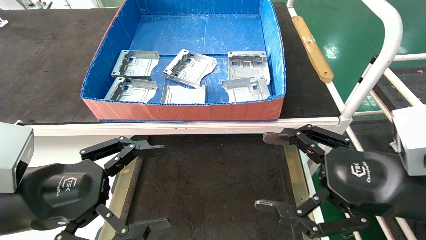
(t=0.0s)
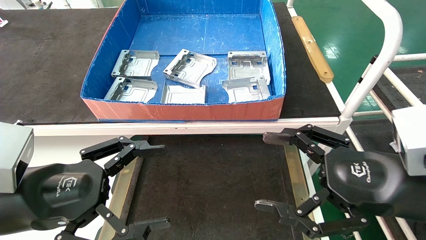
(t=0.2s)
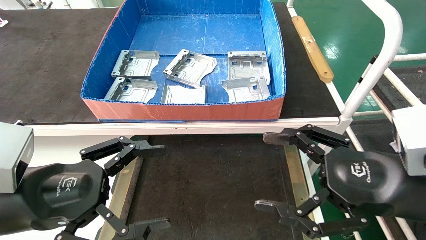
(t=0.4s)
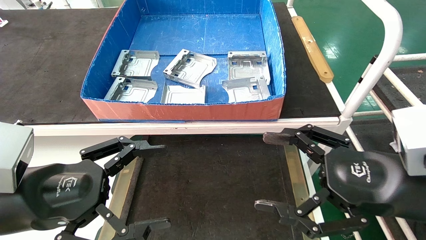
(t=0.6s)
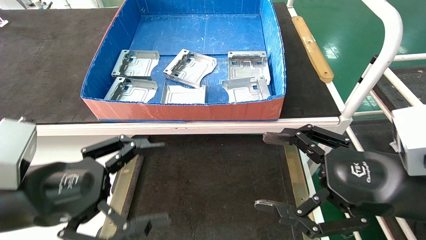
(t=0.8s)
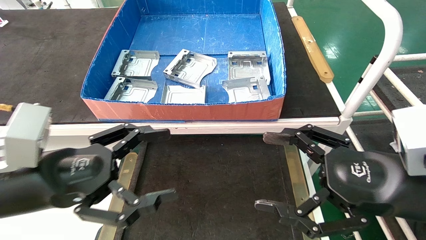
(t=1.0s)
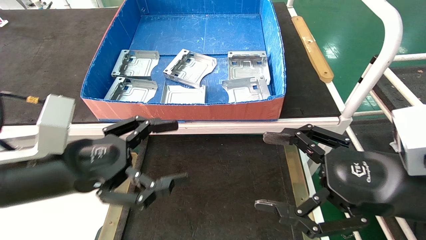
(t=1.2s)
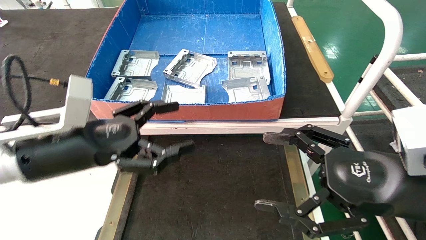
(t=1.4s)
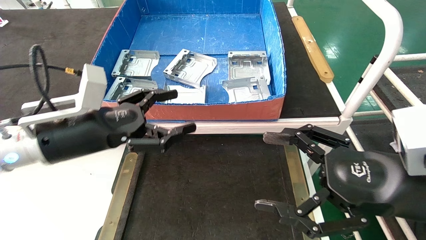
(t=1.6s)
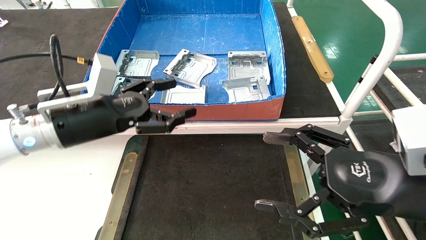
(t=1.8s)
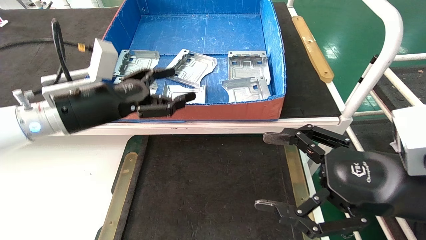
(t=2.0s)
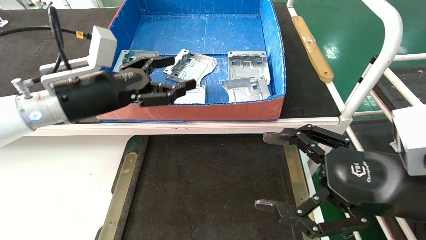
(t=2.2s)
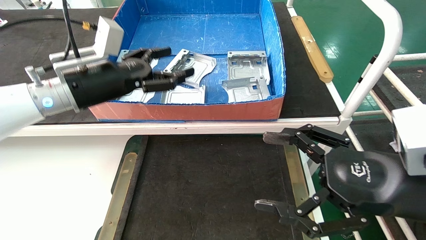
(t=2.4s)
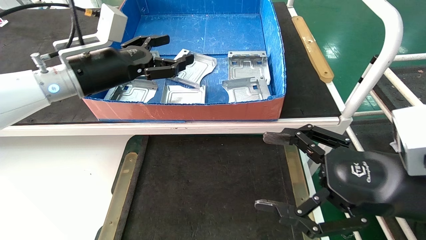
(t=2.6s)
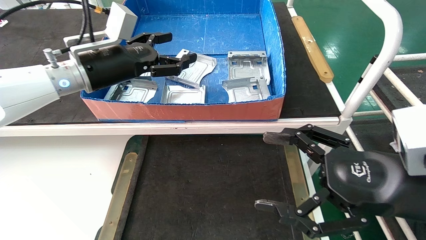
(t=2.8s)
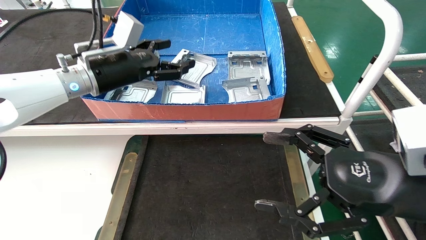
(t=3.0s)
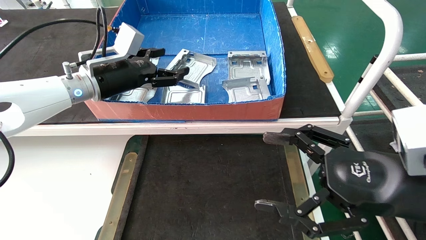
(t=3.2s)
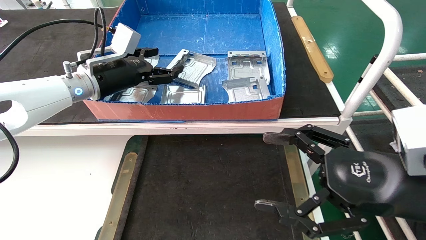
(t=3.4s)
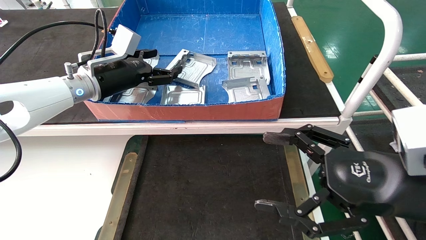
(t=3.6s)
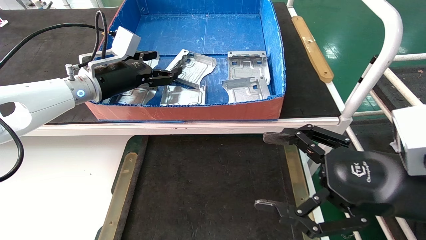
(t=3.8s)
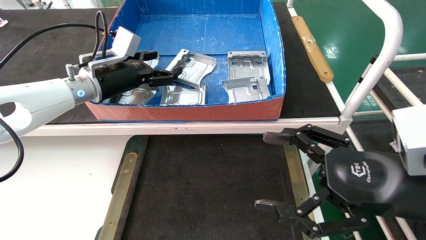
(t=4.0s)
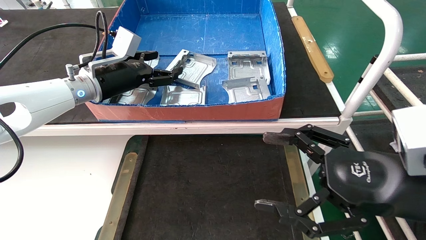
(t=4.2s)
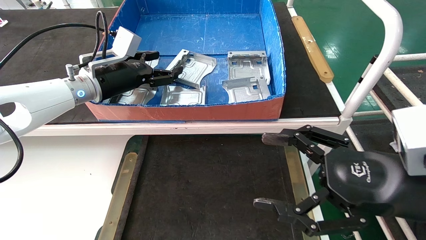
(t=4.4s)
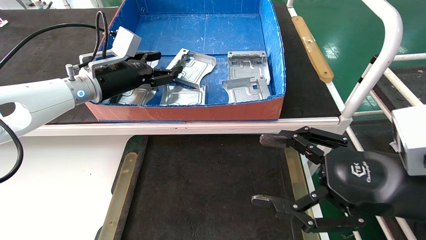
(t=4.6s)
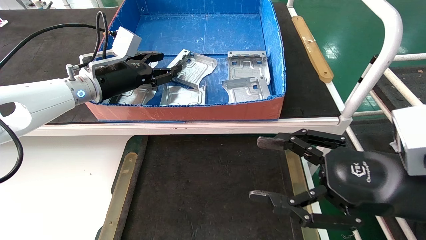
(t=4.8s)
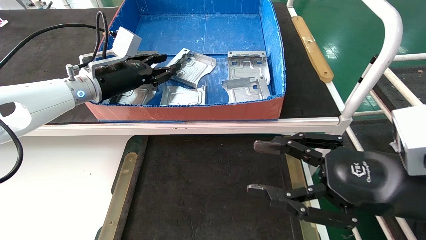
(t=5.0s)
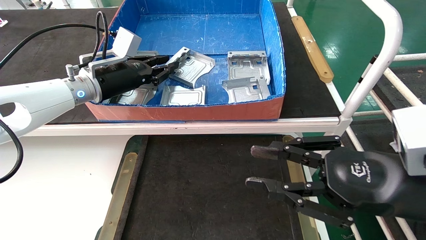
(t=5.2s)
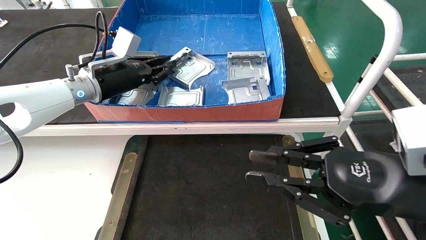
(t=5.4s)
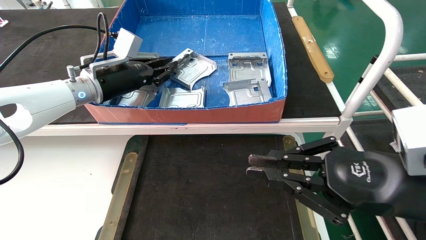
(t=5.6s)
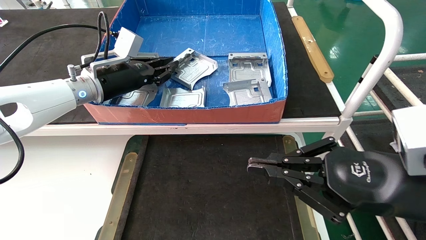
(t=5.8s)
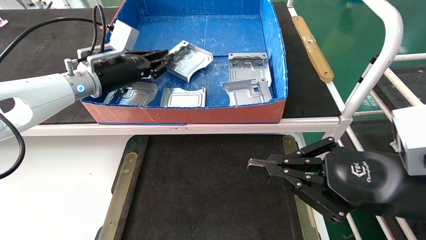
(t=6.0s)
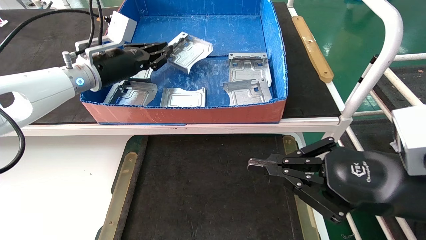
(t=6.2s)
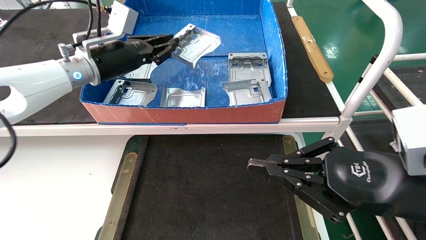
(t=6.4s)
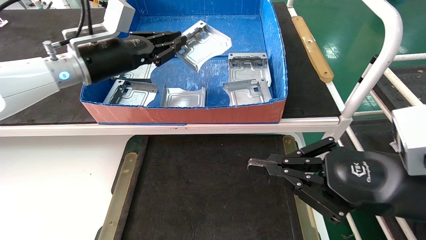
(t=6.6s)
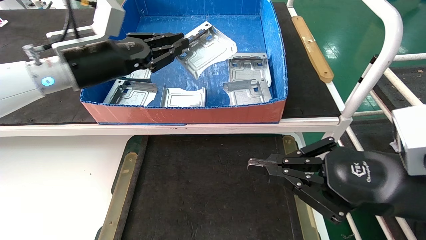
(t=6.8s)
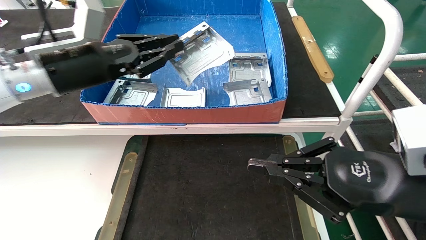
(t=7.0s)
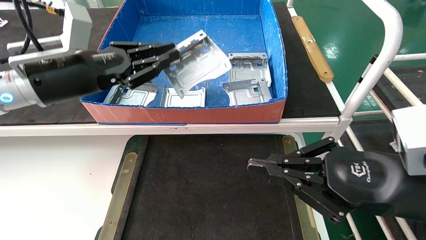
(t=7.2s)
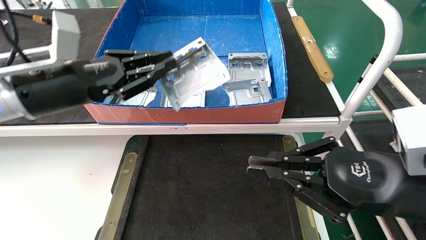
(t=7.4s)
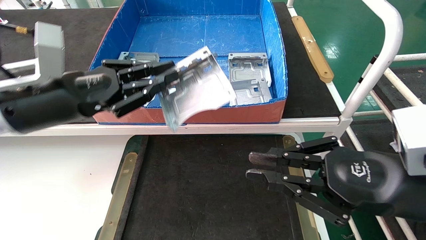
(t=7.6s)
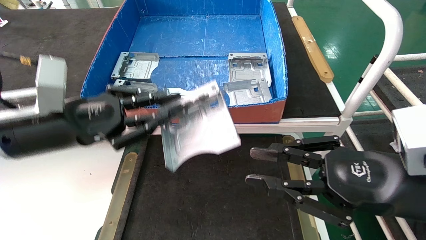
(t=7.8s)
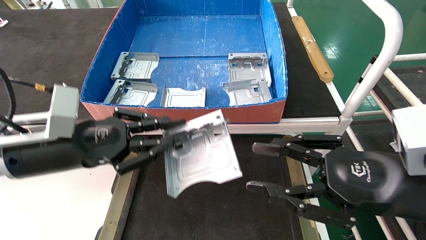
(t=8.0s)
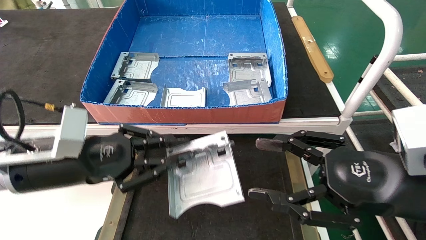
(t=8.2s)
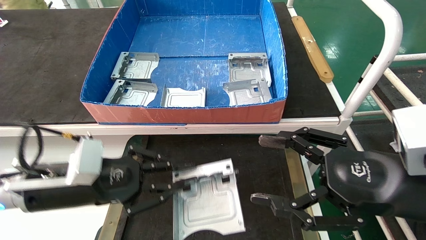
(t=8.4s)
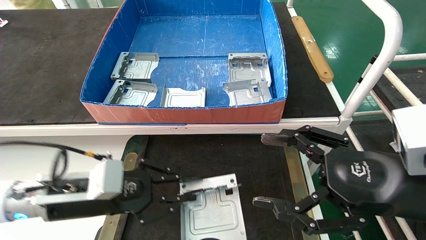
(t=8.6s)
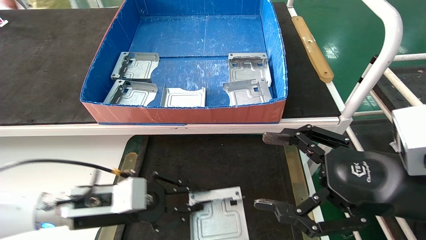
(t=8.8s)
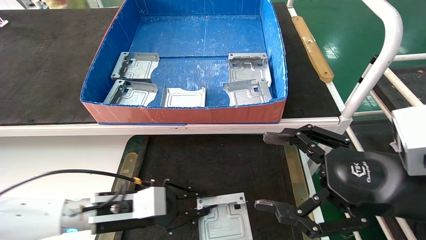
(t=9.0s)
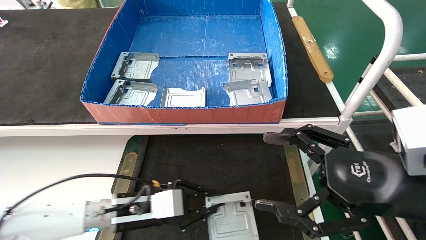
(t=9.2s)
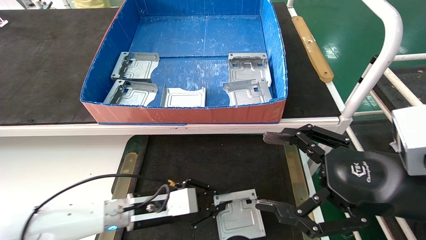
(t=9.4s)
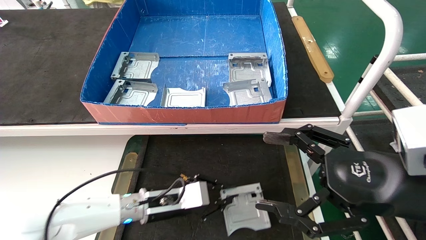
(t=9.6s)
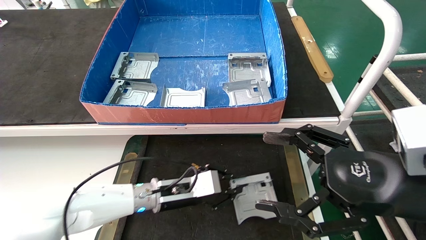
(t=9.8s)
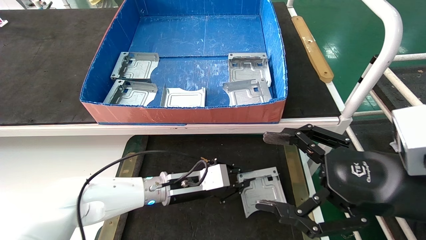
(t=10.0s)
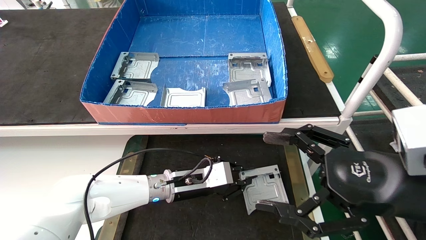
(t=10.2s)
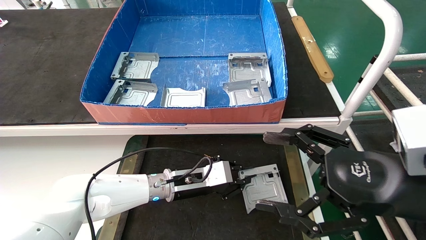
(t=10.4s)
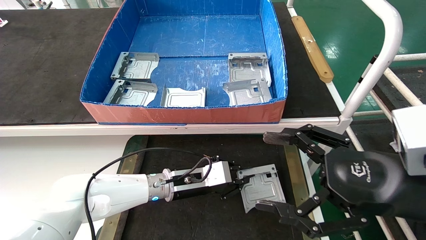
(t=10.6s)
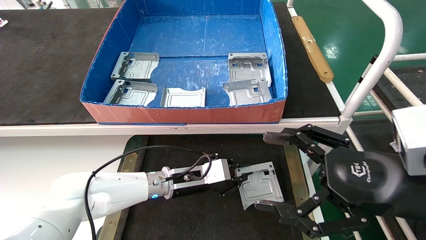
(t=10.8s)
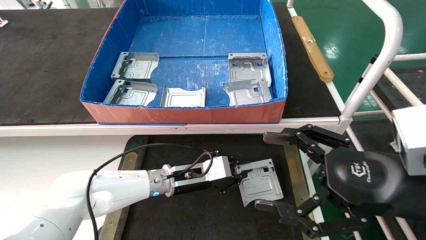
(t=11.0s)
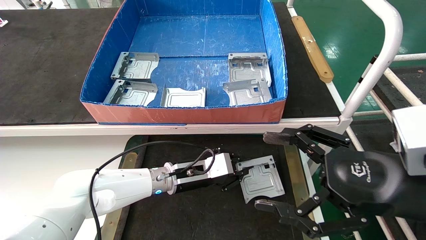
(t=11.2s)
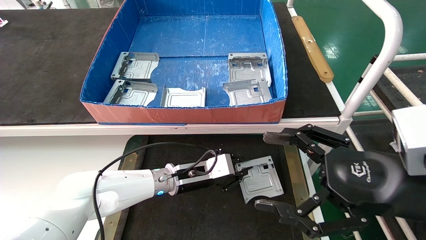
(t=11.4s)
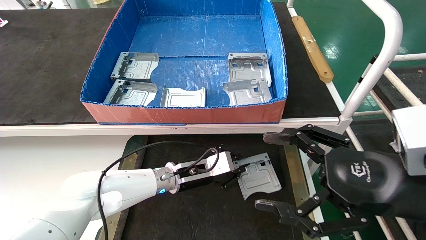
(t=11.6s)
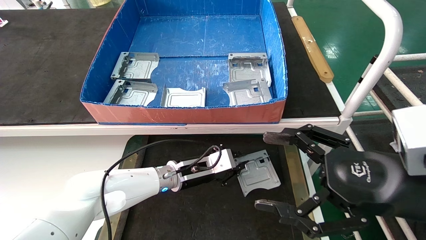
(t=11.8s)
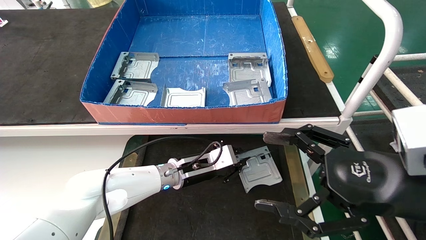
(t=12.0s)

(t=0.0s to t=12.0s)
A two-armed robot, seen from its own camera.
Task of the whole recording: take the accessories out of the box and place them on the table.
Step, t=1.4s - t=5.6s: Pick up the hard drive bracket from the feeding area.
t=0.0s - t=1.6s: The left gripper travels forward by some 10 cm.
t=1.6s - t=3.0s: The left gripper moves forward and upward, approximately 15 cm.
t=3.0s - t=4.4s: The grippers move only a little.
t=4.4s - t=6.0s: The left gripper closes up. The right gripper closes.
t=6.0s - t=7.6s: The left gripper heads backward, covering approximately 15 cm.
t=7.6s - t=9.0s: The left gripper heads downward, covering approximately 20 cm. Meanwhile the right gripper opens up.
t=9.0s - t=10.4s: The left gripper is displaced to the right and forward by some 15 cm.
t=10.4s - t=12.0s: The grippers make only small movements.

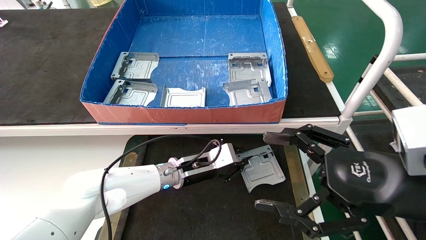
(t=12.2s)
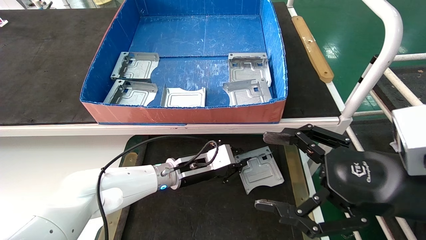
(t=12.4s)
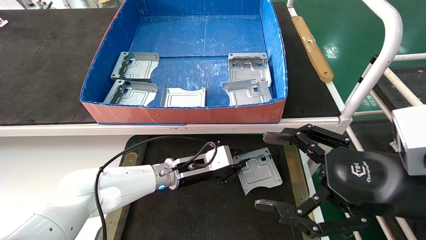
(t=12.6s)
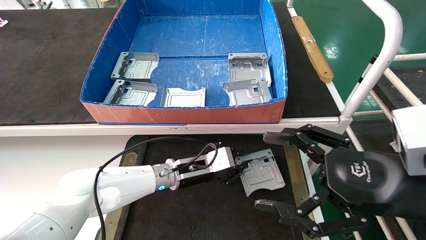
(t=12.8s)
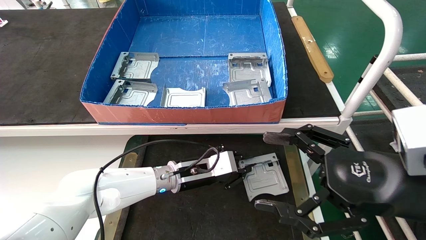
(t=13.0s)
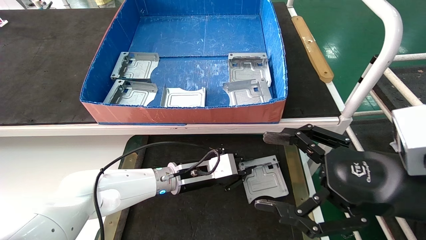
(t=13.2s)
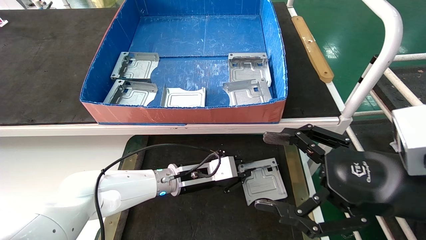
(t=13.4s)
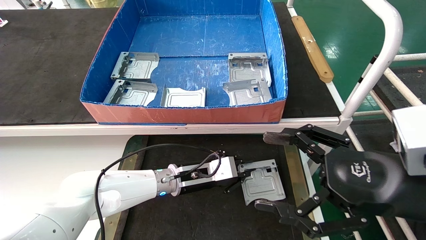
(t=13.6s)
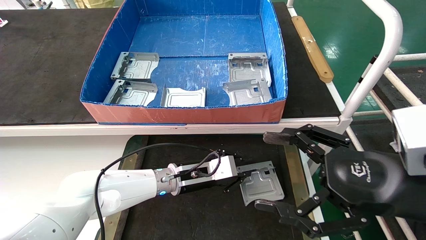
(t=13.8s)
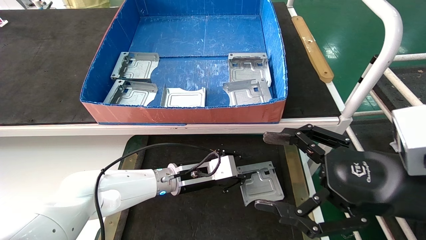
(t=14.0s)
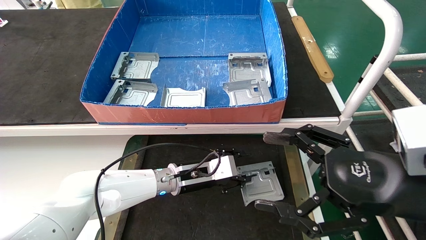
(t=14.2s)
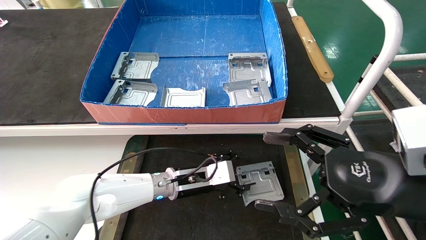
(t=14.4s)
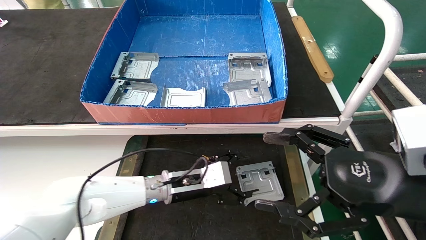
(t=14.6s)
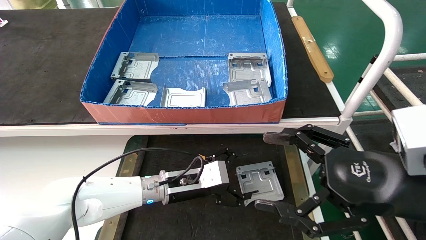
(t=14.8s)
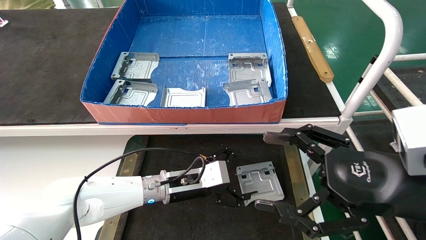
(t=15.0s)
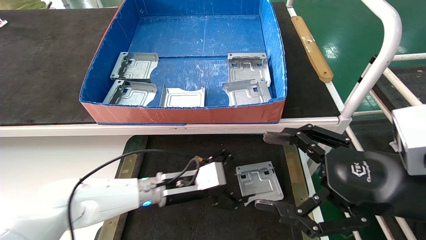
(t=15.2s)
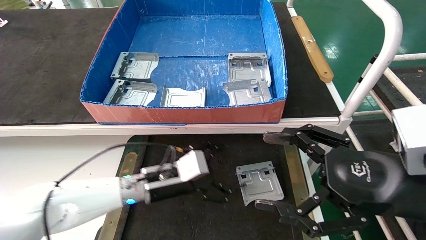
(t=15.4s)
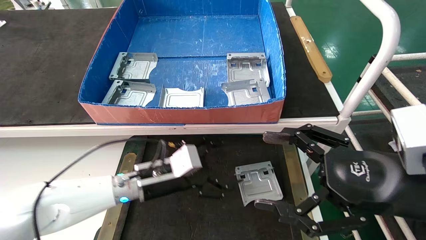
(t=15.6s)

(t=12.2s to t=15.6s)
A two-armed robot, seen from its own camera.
Task of the whole recording: take the accessories out of the box and place them on the table.
t=12.2s - t=13.8s: The grippers make only small movements.
t=13.8s - t=15.6s: The left gripper heads to the left, covering some 5 cm, and opens its fingers.
